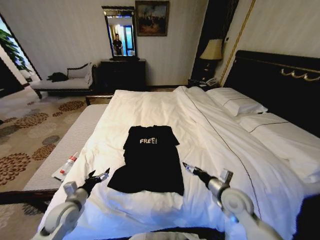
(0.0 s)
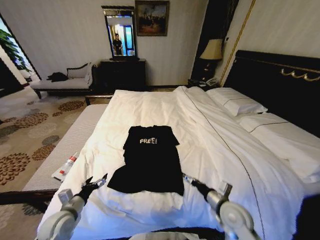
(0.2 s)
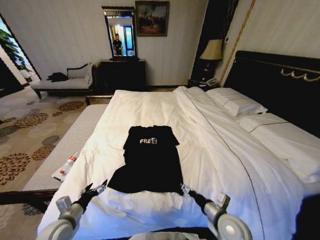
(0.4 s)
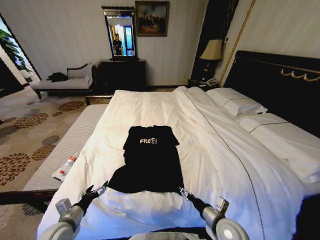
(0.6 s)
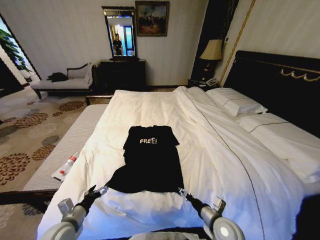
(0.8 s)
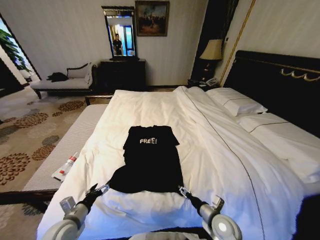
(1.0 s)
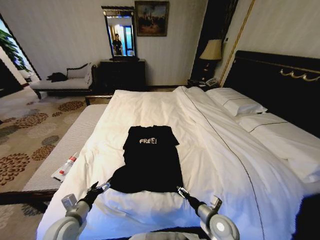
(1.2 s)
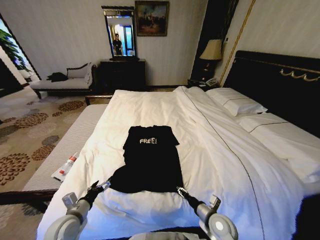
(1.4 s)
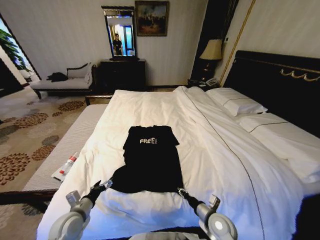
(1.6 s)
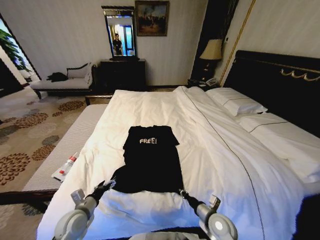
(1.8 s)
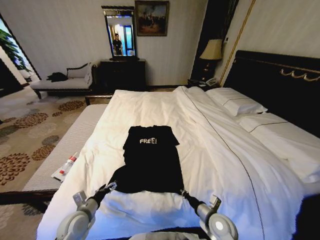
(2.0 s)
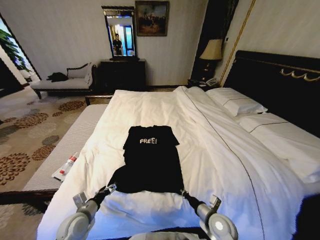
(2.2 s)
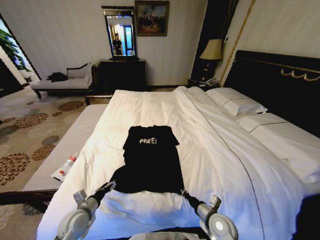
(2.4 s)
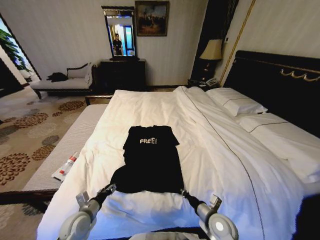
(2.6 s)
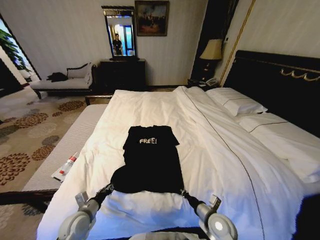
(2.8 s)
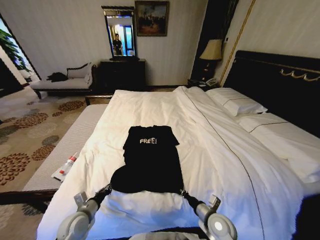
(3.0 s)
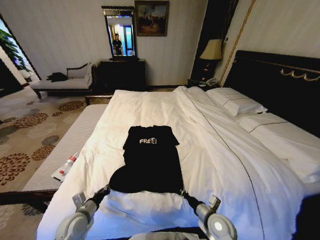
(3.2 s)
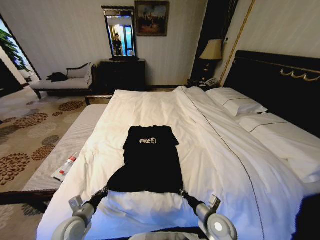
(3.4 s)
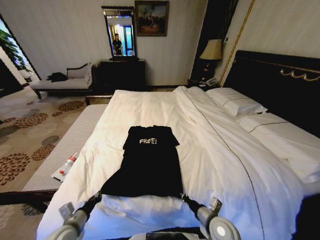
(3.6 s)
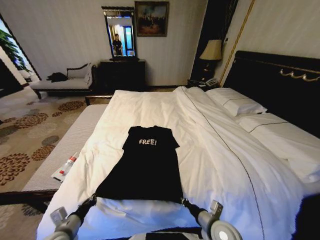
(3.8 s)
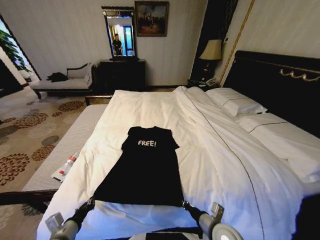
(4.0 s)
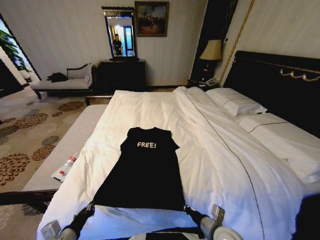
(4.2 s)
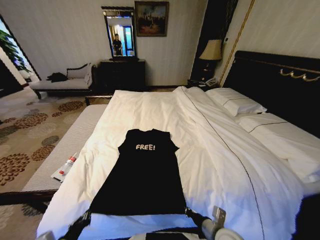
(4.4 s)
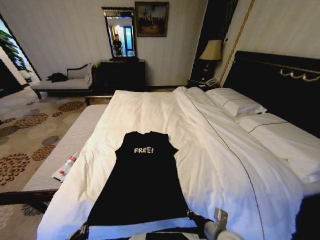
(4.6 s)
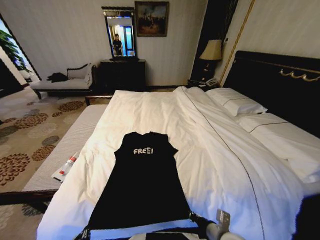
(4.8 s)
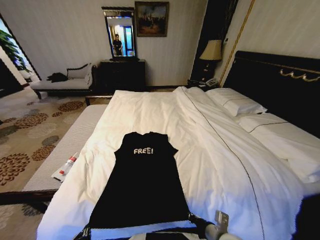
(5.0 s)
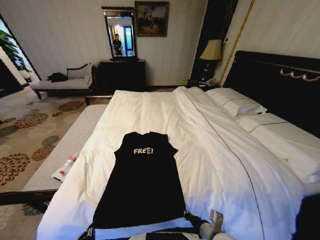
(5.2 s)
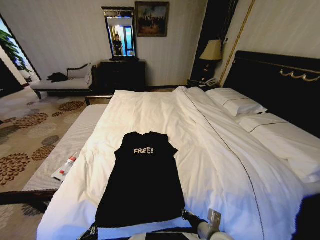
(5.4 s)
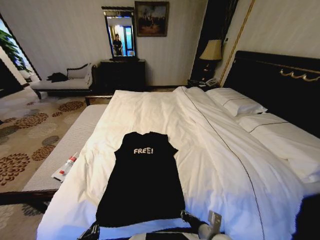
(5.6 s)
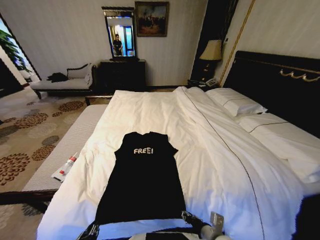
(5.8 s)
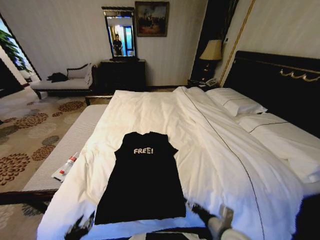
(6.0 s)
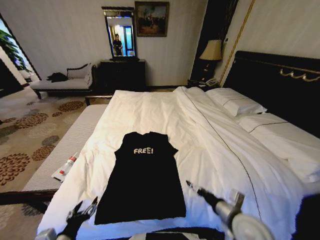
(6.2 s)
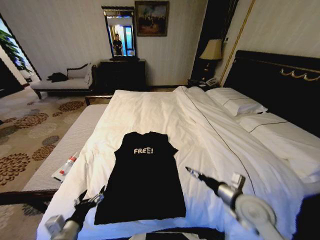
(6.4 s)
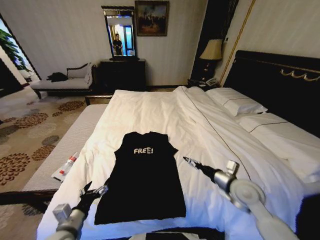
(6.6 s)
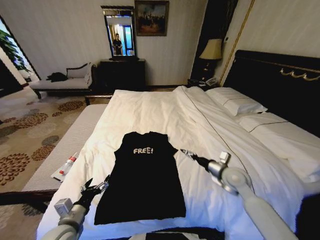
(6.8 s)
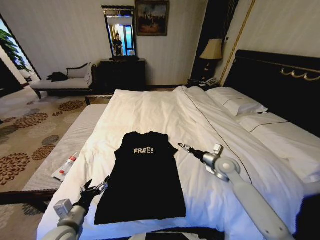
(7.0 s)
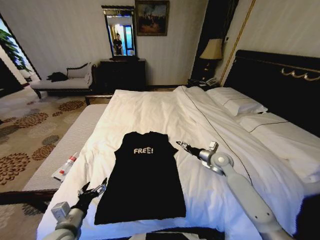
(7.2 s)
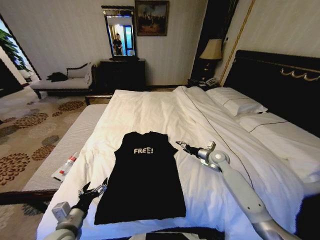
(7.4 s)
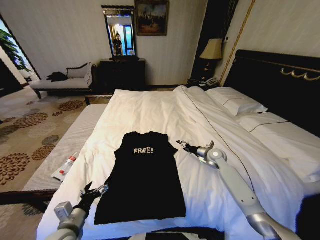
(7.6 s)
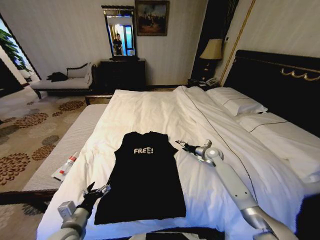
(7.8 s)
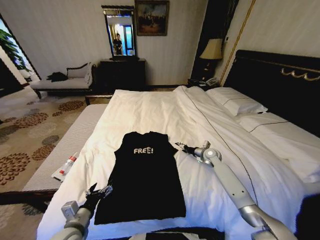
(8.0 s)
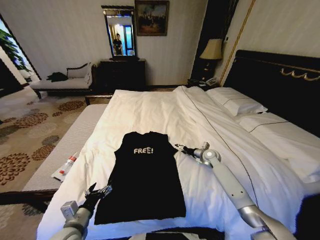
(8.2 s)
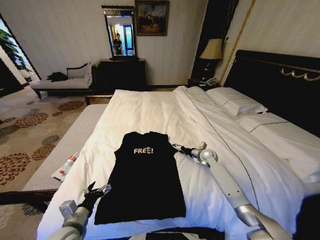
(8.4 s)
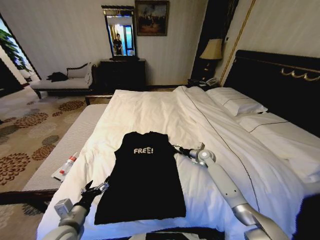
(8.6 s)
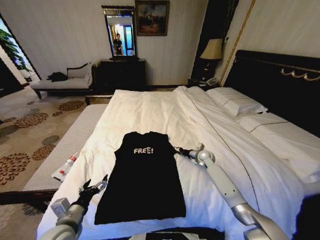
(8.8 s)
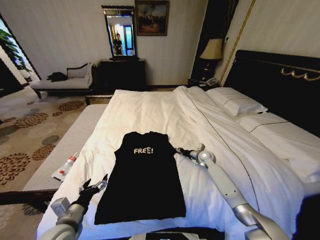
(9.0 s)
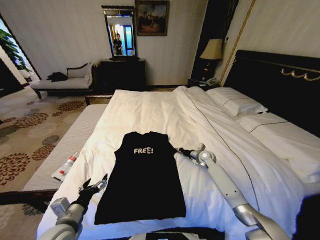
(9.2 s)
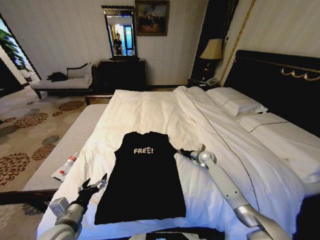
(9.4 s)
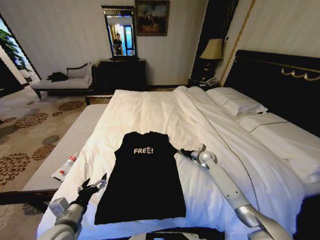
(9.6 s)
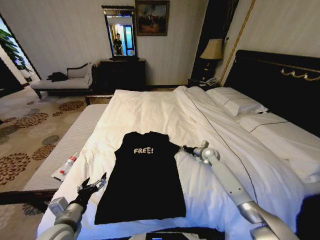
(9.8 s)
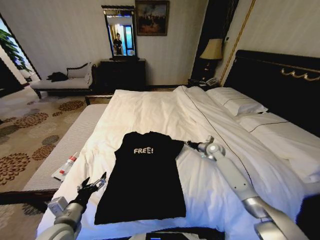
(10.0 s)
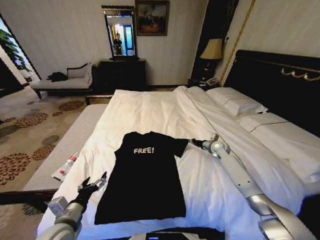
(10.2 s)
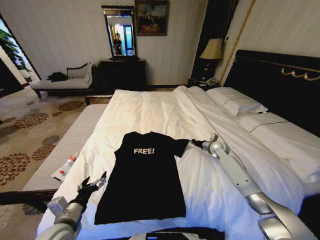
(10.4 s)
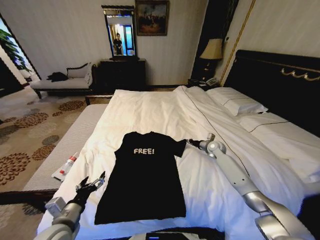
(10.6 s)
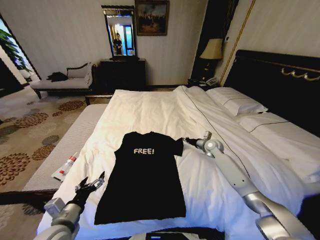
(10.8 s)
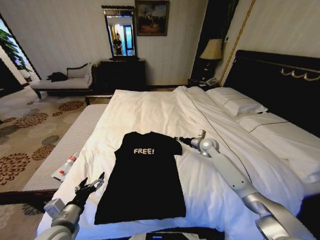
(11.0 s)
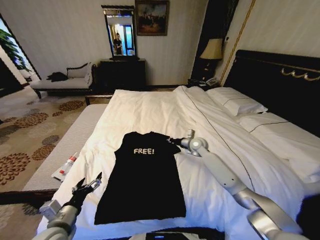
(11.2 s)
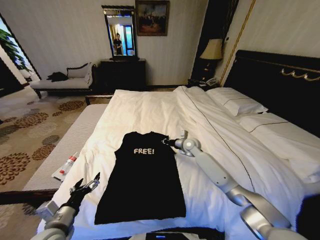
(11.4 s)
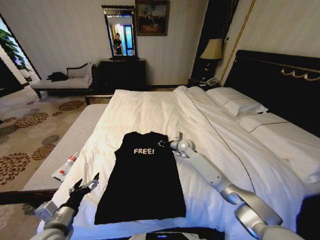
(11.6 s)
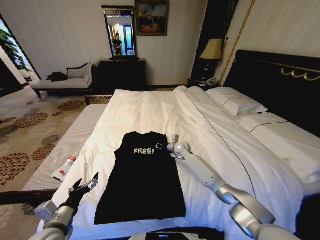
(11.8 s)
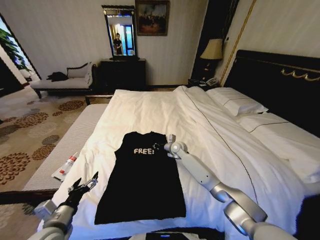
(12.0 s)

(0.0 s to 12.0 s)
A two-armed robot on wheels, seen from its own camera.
Task of the whole recording: Fold the clothes on the bed.
0.0 s - 1.6 s: The right gripper shifts about 10 cm downward and backward, and closes up.
1.6 s - 3.0 s: The left gripper closes its fingers.
3.0 s - 4.4 s: The right gripper is displaced backward by about 5 cm. Meanwhile the left gripper moves backward and upward, about 15 cm.
4.4 s - 6.0 s: The right gripper opens up, while the left gripper opens up.
6.0 s - 7.6 s: The right gripper travels forward by approximately 35 cm, and opens its fingers. The left gripper travels forward by some 10 cm, and opens up.
7.6 s - 9.0 s: The right gripper shifts some 5 cm downward, and closes up.
9.0 s - 10.4 s: The right gripper heads to the right and upward, covering approximately 10 cm, and closes.
10.4 s - 12.0 s: The right gripper moves to the left, roughly 25 cm.

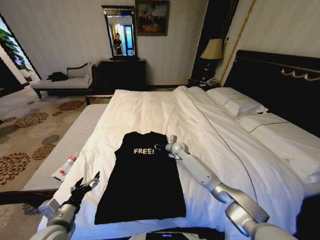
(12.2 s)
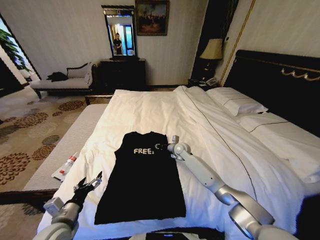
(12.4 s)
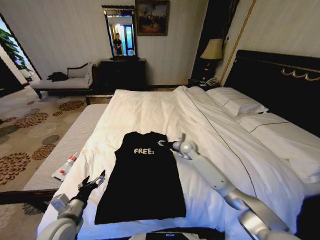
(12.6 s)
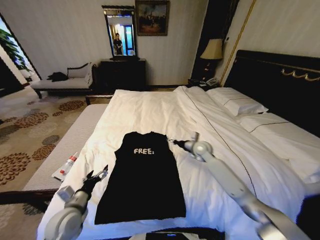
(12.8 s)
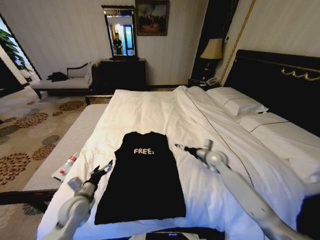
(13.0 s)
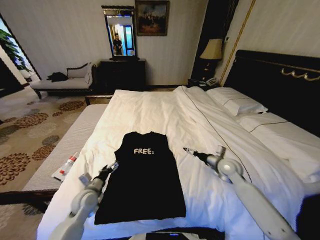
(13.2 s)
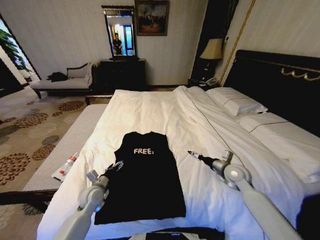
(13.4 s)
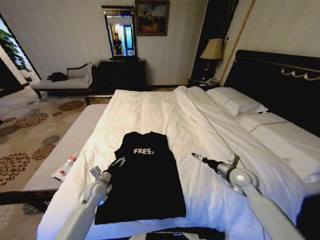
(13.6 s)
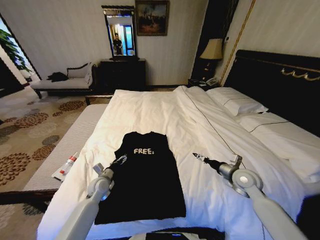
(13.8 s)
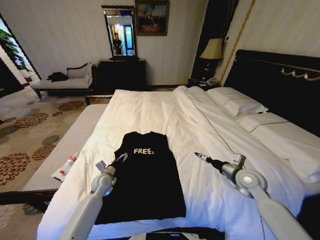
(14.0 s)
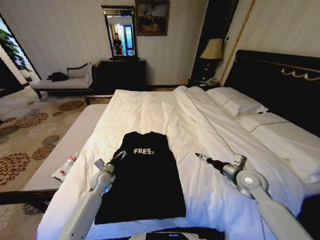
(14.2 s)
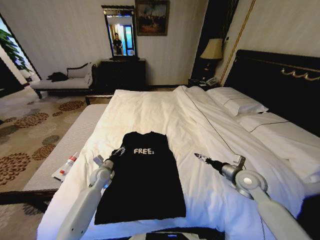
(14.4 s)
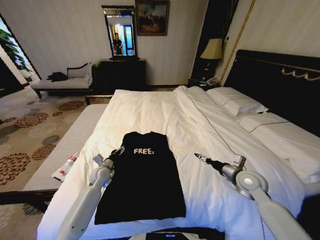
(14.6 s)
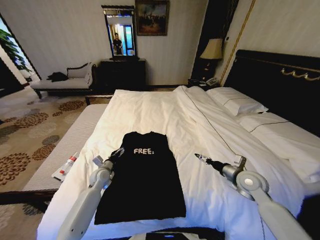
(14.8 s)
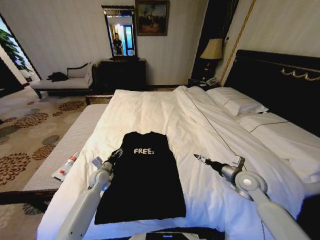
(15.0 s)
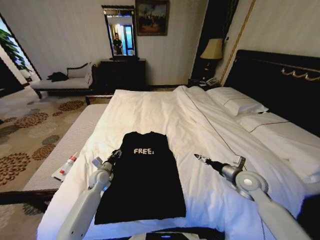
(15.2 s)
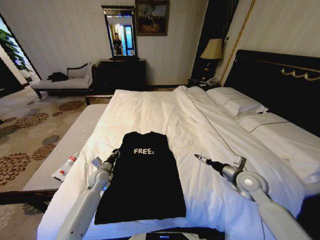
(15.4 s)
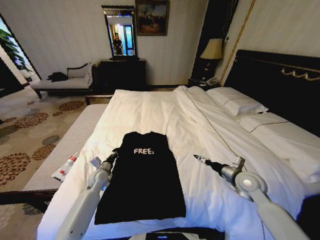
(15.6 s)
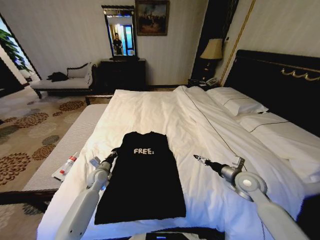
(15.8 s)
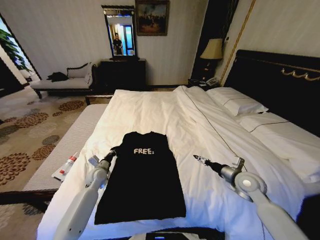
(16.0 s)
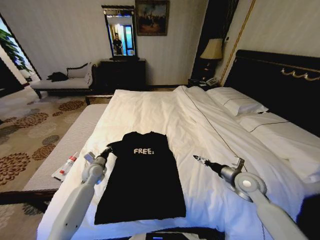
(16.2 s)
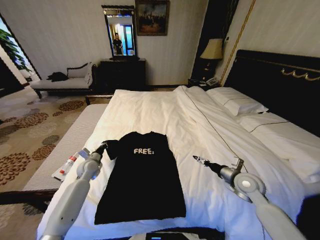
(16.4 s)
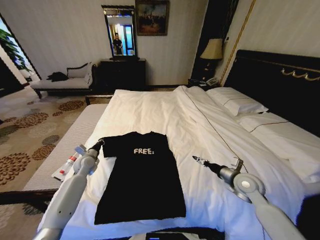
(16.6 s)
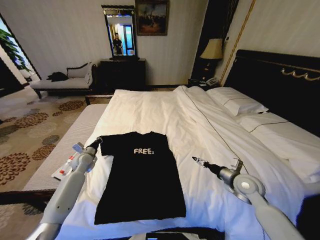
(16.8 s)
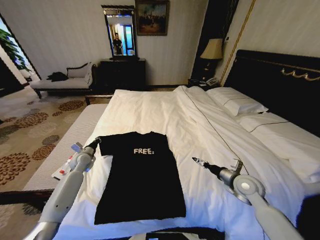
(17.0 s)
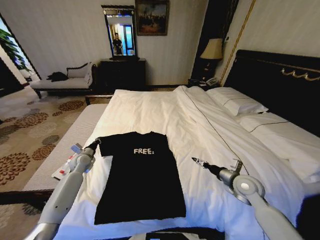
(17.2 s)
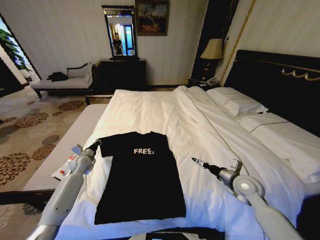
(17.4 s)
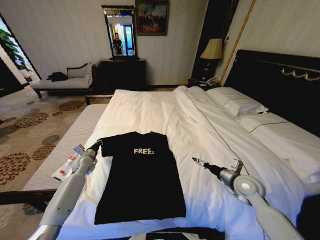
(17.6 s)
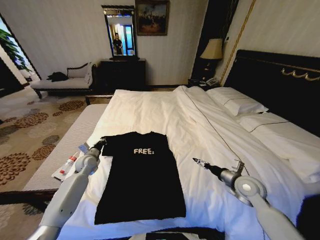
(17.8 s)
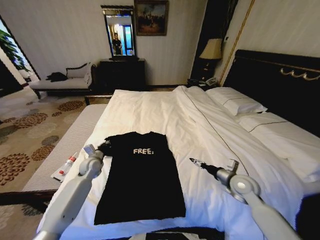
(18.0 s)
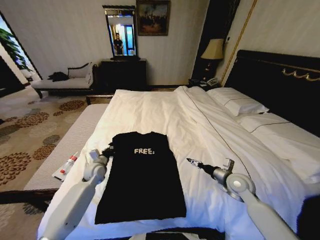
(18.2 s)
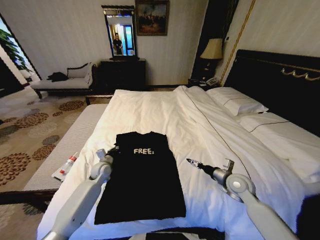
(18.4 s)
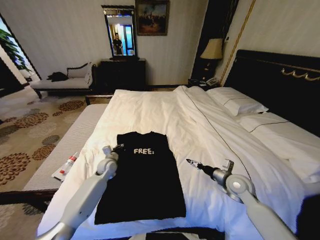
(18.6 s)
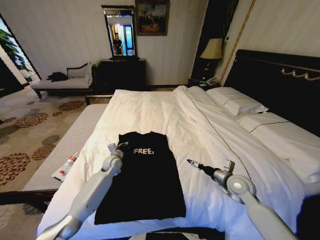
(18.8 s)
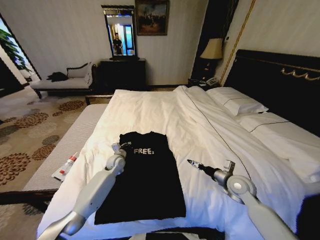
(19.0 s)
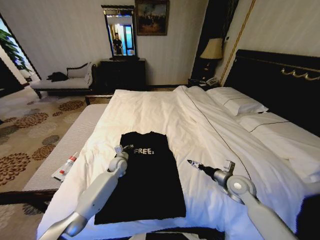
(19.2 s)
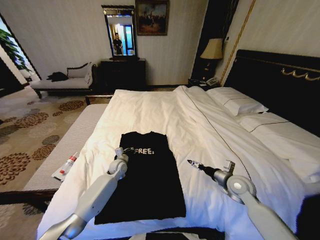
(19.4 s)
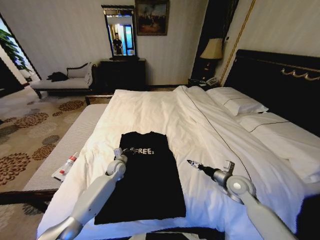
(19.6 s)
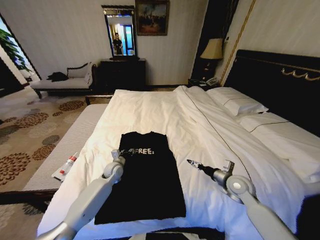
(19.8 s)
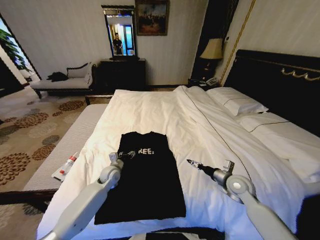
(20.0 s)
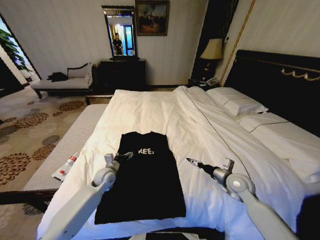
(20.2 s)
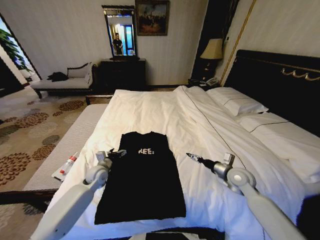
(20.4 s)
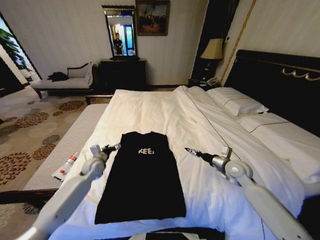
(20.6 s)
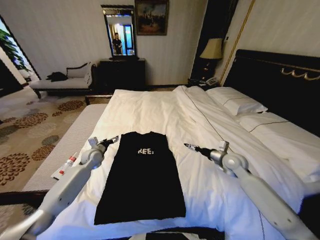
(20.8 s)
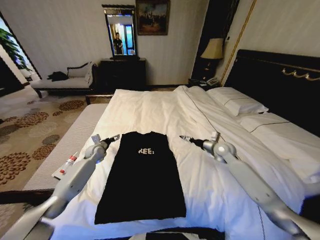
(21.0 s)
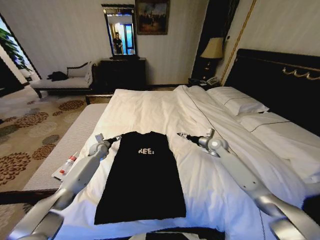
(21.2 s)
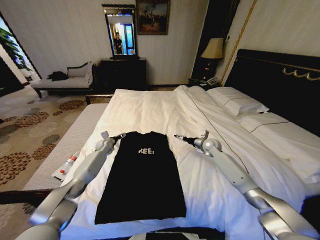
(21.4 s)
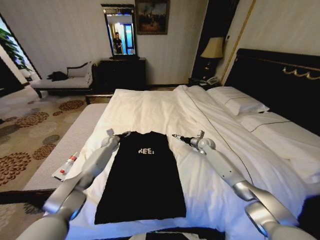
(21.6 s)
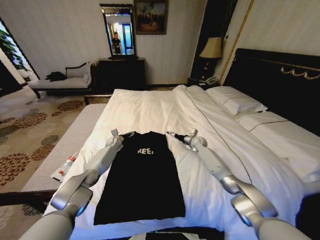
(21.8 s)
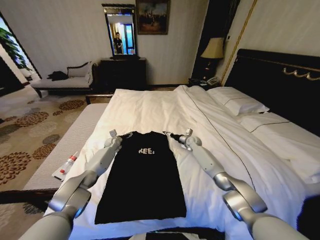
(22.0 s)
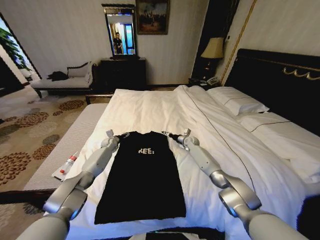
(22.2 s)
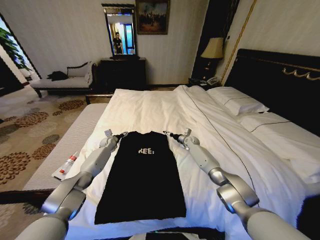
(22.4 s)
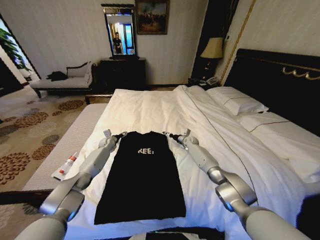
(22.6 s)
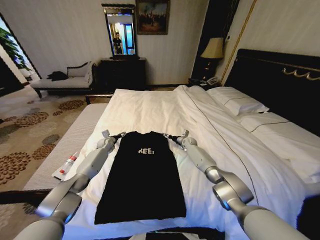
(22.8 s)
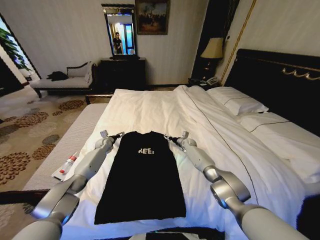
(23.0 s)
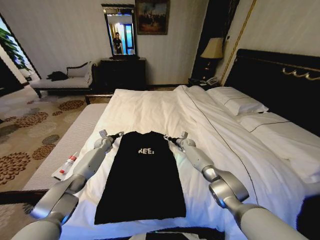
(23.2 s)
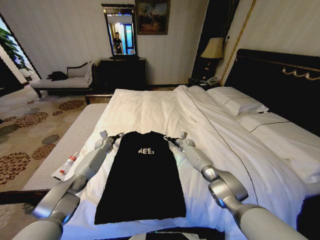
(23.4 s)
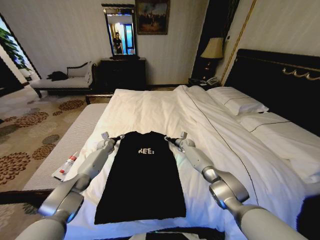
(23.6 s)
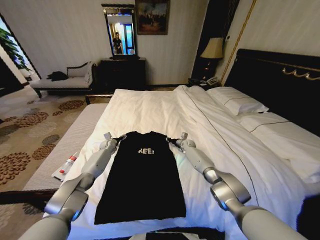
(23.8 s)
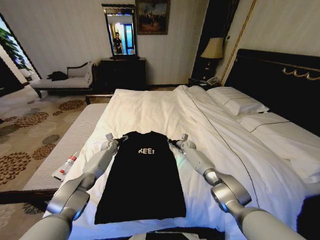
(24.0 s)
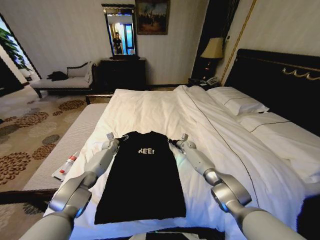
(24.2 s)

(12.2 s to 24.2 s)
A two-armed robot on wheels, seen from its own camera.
Task of the whole recording: Fold the clothes on the bed.
12.2 s - 13.8 s: The right gripper moves backward and to the right, some 30 cm, and opens, while the left gripper is displaced forward and downward by about 20 cm.
13.8 s - 15.2 s: The left gripper closes its fingers.
15.2 s - 16.6 s: The left gripper travels to the left, forward and upward by roughly 10 cm, and closes up.
16.6 s - 18.2 s: The left gripper moves to the right, approximately 5 cm.
18.2 s - 19.8 s: The left gripper goes approximately 10 cm to the right, and opens its fingers.
19.8 s - 21.2 s: The left gripper heads to the left and forward, covering some 15 cm, and opens up. Meanwhile the right gripper travels forward by some 20 cm.
21.2 s - 22.6 s: The left gripper heads forward, covering approximately 5 cm, while the right gripper is displaced forward, downward and to the left by some 20 cm.
22.6 s - 24.2 s: The right gripper closes up.
